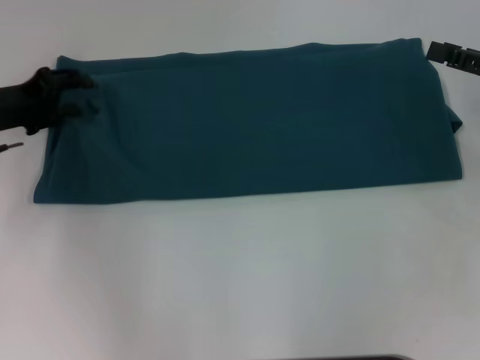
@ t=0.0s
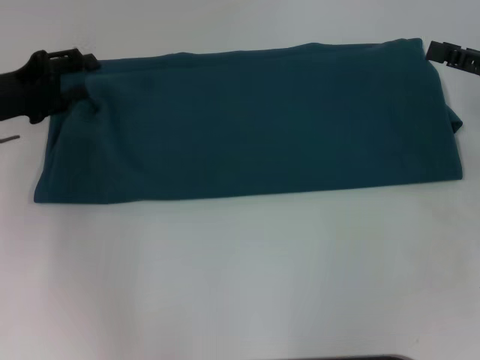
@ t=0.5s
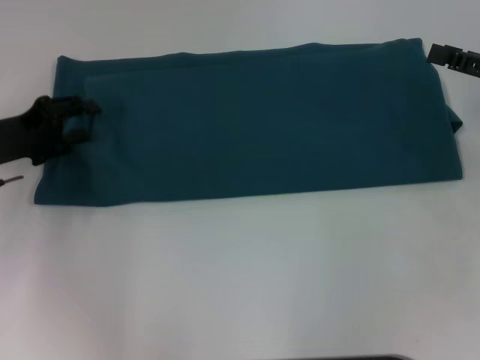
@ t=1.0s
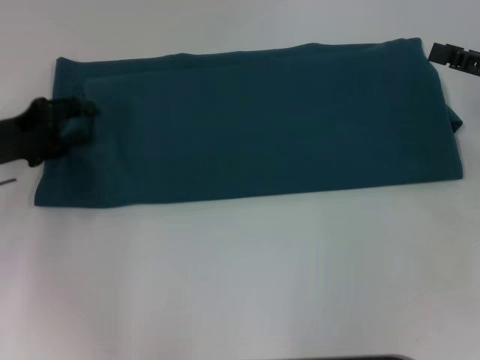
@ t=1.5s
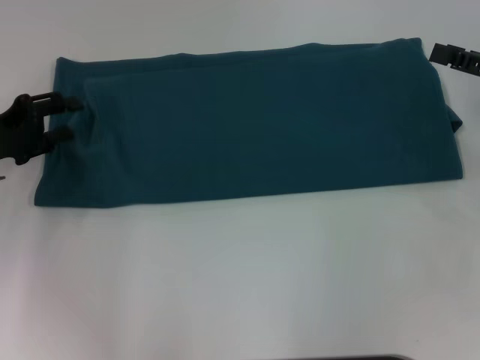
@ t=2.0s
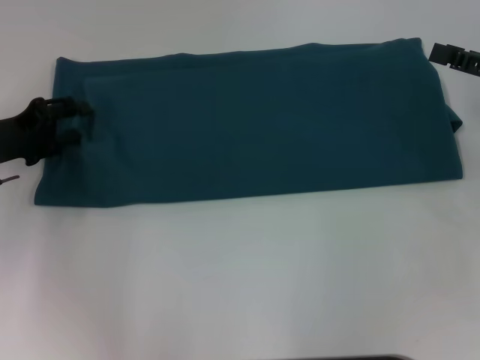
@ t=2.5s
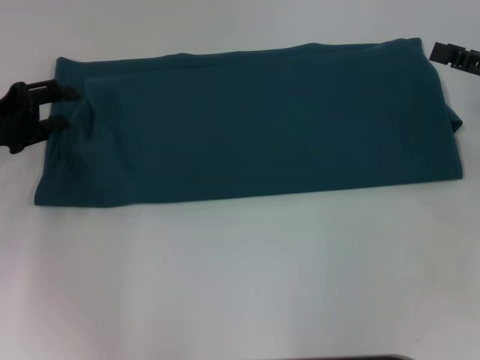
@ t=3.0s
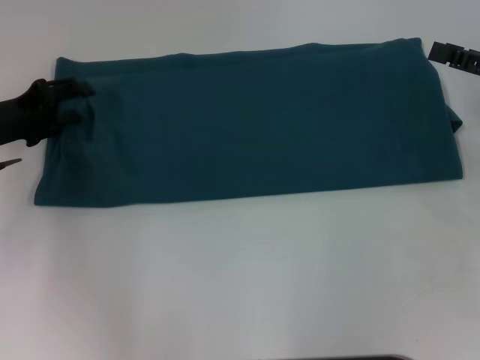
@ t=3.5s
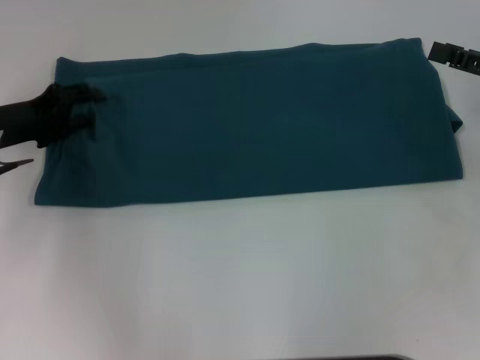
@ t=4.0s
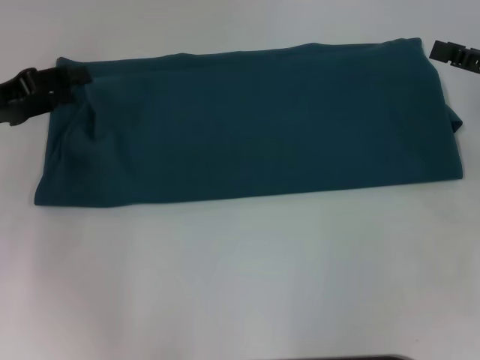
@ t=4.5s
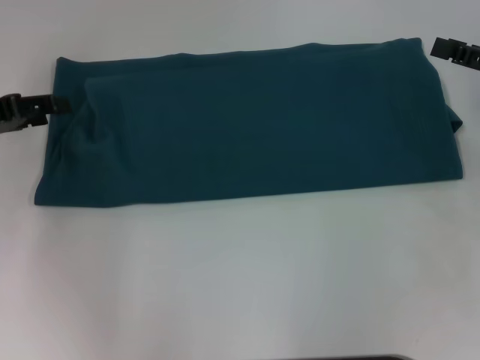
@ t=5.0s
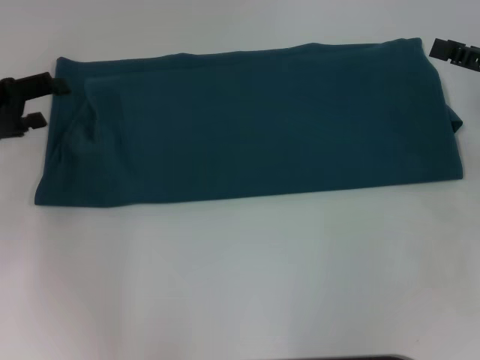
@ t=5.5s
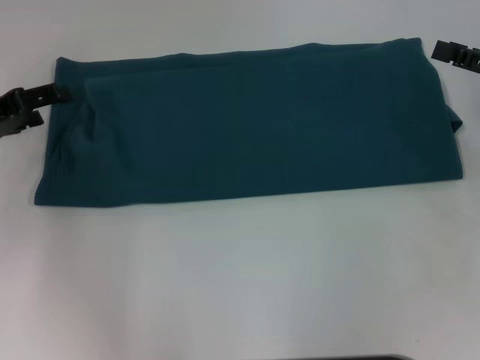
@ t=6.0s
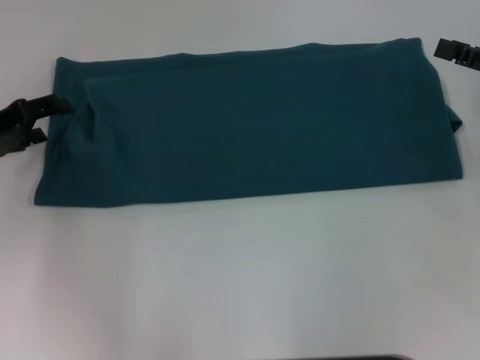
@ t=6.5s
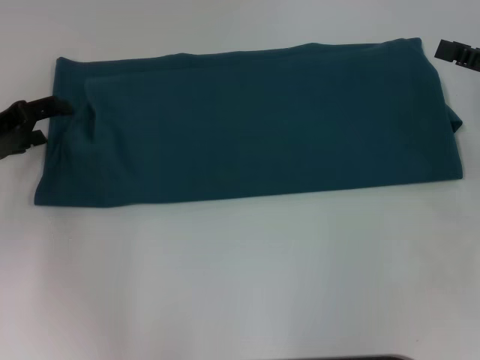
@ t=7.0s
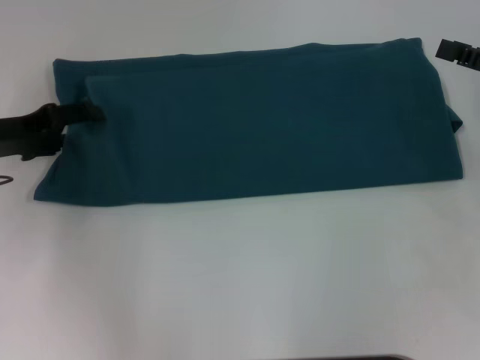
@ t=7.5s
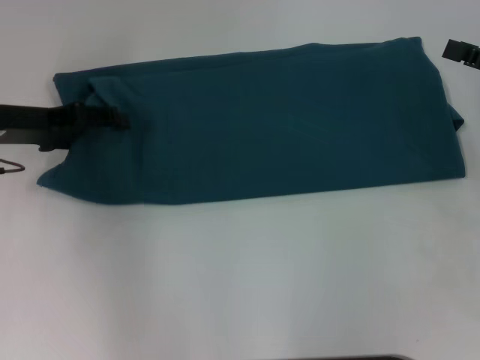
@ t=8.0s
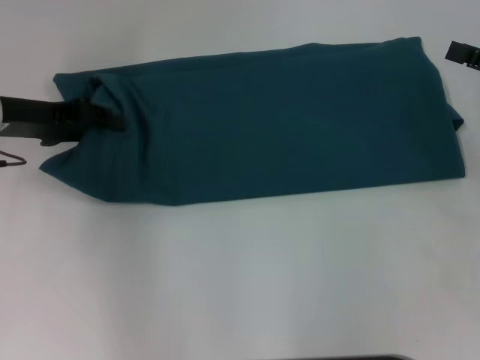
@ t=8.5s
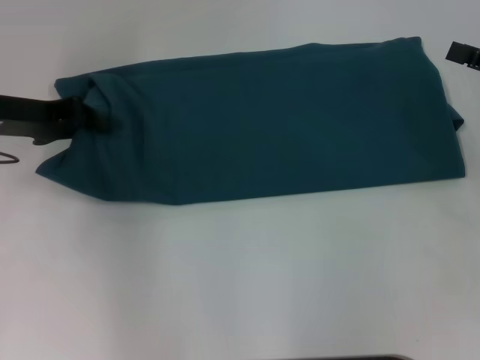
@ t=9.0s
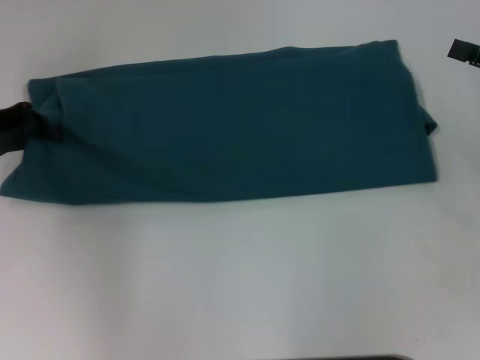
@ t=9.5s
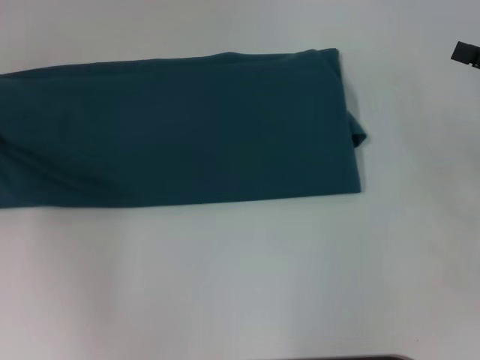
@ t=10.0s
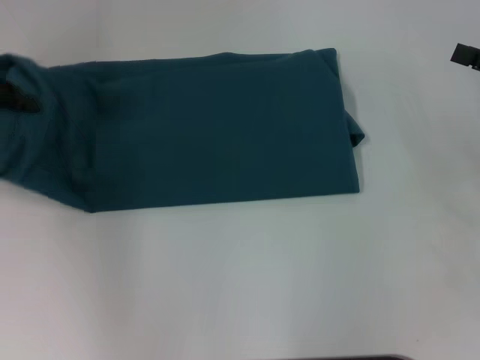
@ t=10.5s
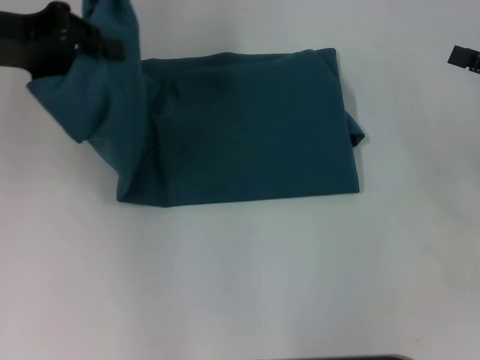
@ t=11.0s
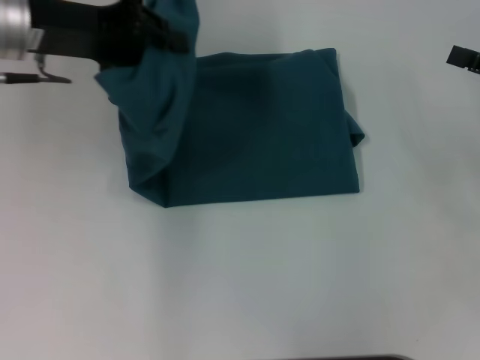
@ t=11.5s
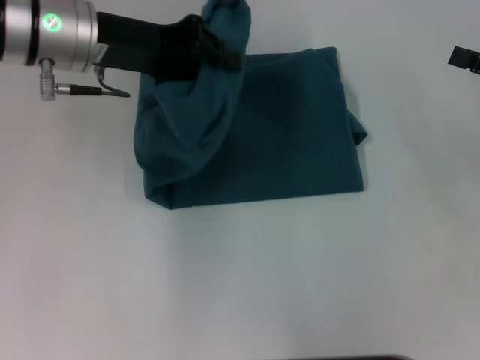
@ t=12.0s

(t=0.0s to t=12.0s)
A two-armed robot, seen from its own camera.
t=0.0s - t=4.0s: The grippers stay close to where they were, moving slightly.
t=6.0s - t=8.0s: The left gripper ends up some 5 cm from where it was.
t=8.0s - t=10.0s: The left gripper is displaced to the left by approximately 10 cm, and closes its fingers.
t=10.0s - t=12.0s: The left gripper moves to the right, some 20 cm.

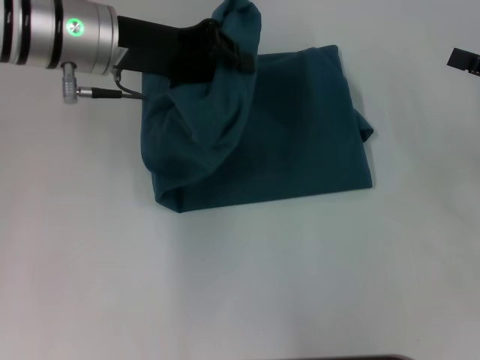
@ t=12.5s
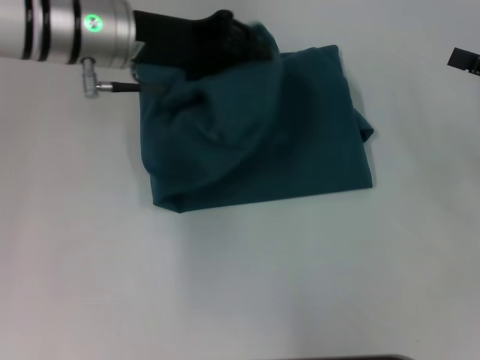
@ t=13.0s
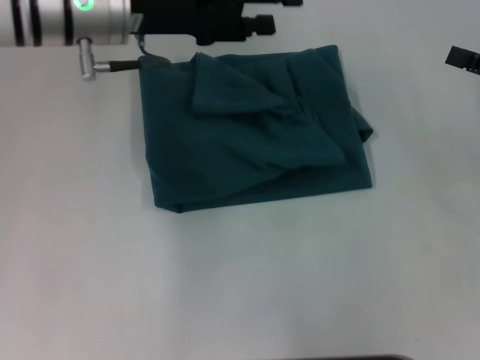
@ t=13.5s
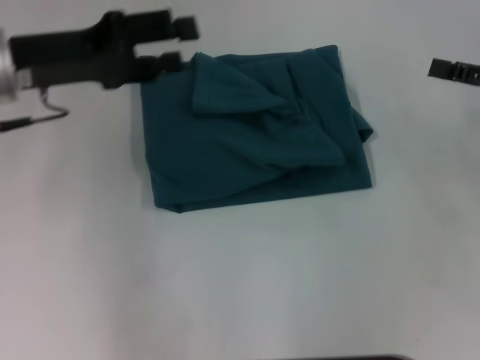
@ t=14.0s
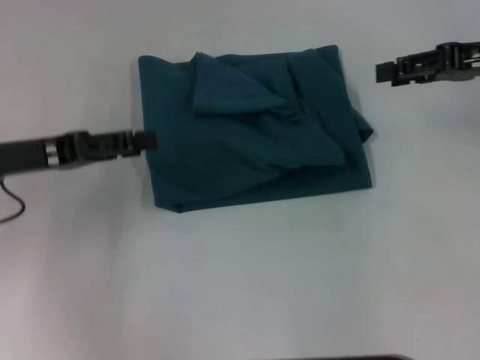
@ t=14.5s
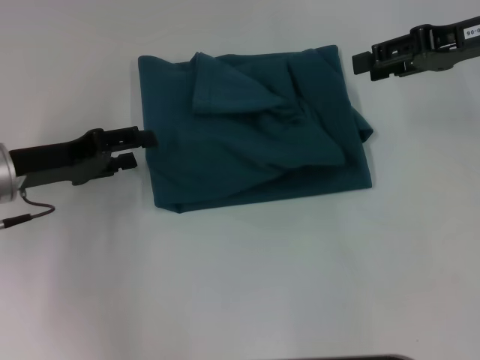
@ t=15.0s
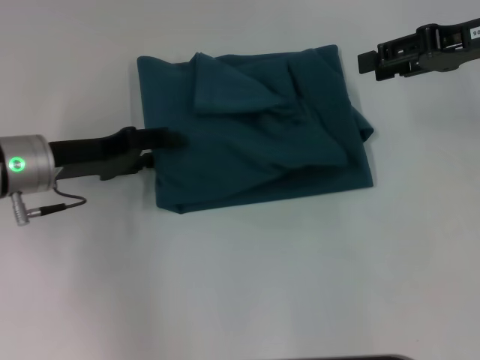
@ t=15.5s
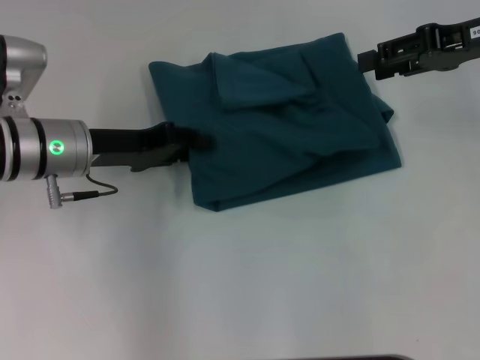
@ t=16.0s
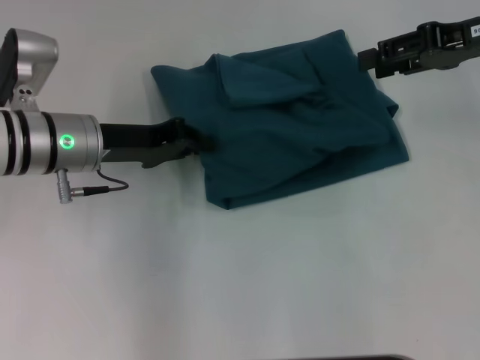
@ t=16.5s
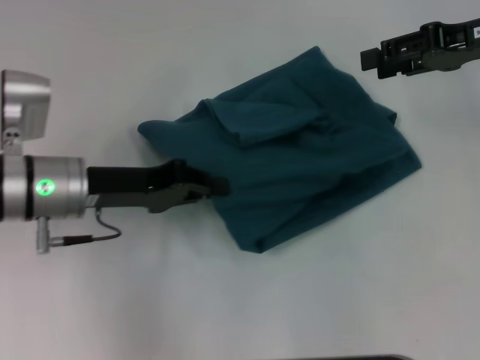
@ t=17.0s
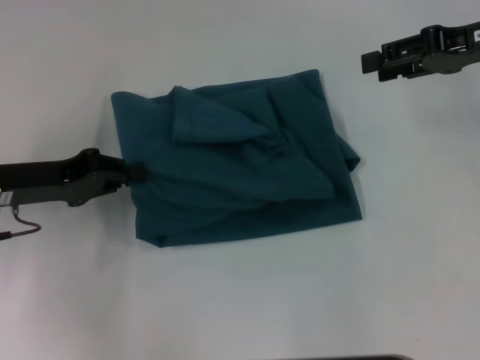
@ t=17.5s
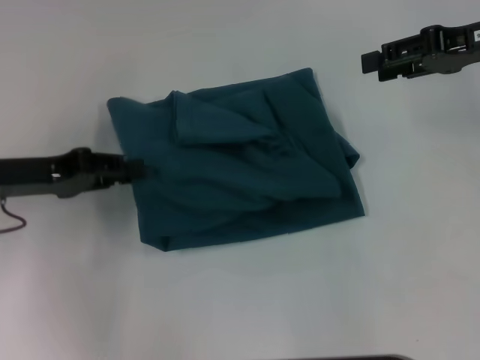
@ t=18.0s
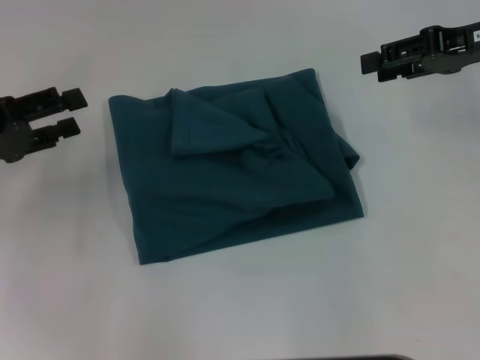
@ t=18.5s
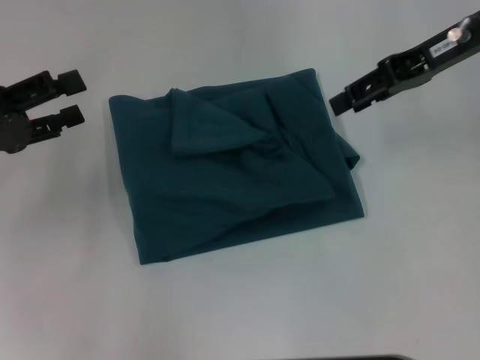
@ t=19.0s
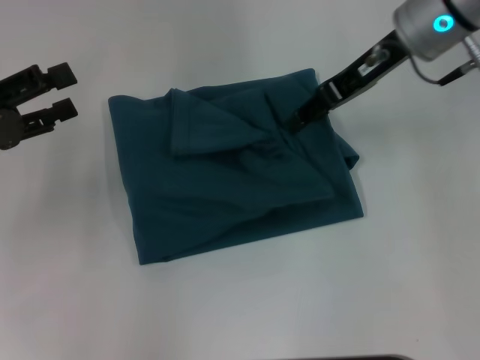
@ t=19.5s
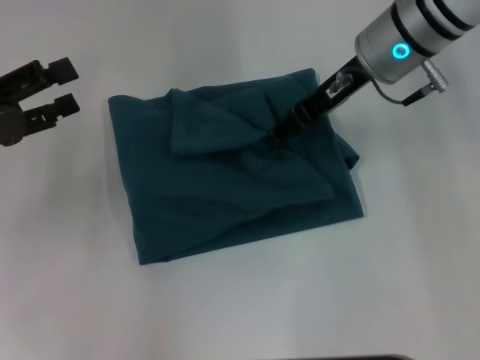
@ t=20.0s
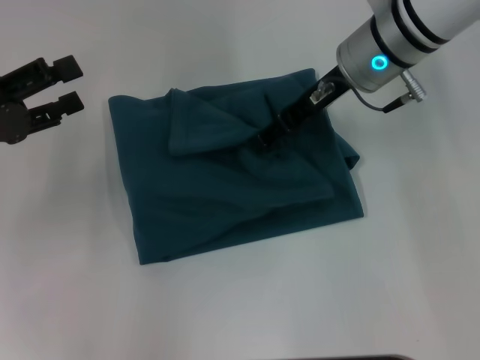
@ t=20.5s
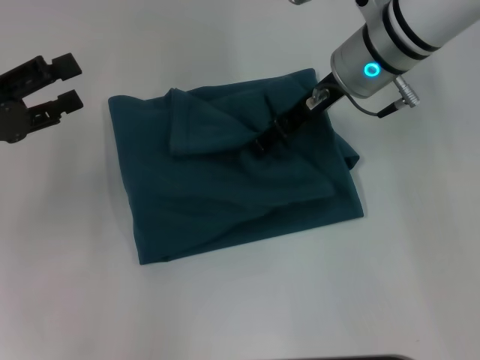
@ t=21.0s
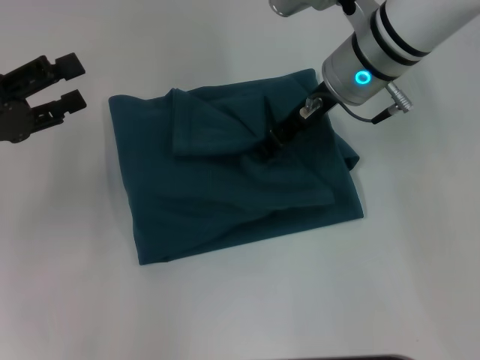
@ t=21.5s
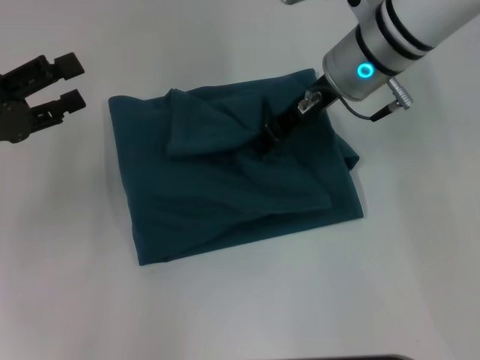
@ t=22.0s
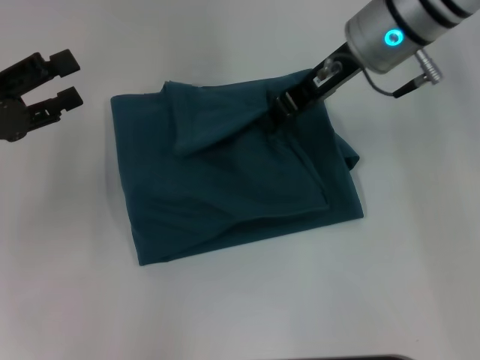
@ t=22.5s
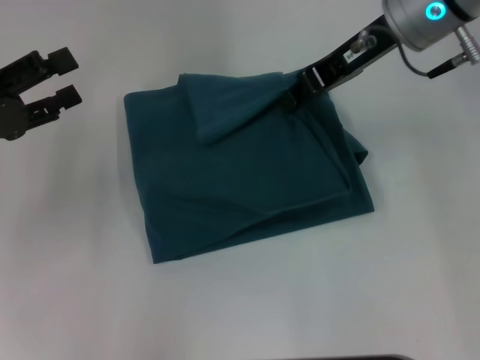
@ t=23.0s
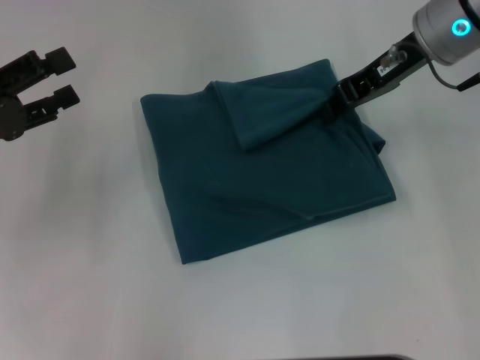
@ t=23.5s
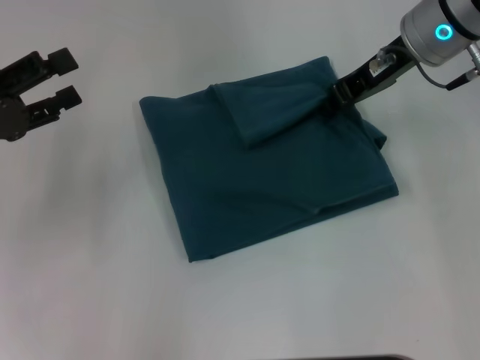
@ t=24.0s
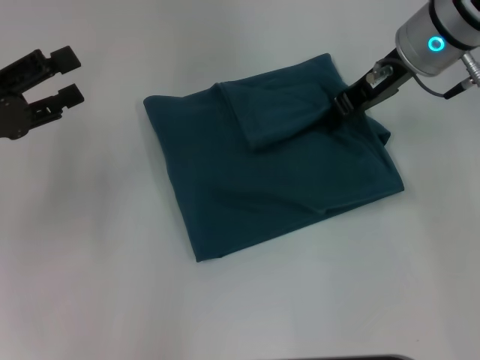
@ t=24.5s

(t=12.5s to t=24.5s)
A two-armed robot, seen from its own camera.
t=12.5s - t=14.5s: The right gripper goes roughly 10 cm forward, to the left and upward; the left gripper is displaced to the left, backward and downward by some 15 cm, and opens up.
t=14.5s - t=16.5s: The left gripper travels to the right and forward by about 10 cm, and closes its fingers.
t=16.5s - t=18.5s: The left gripper is displaced to the left and backward by some 15 cm.
t=18.5s - t=20.5s: The left gripper opens up. Meanwhile the right gripper is displaced to the left by some 15 cm.
t=20.5s - t=22.5s: The right gripper closes its fingers.
t=22.5s - t=24.5s: The grippers make only small movements.

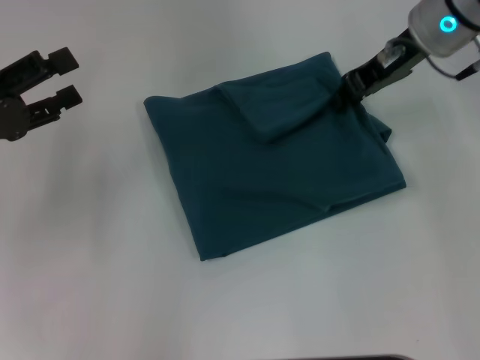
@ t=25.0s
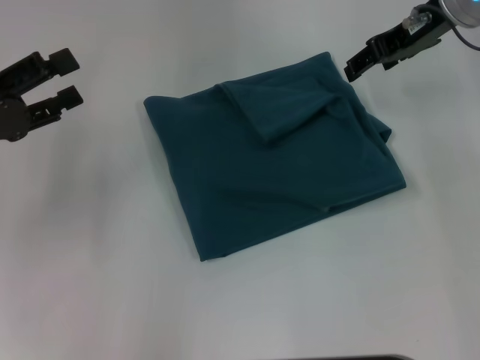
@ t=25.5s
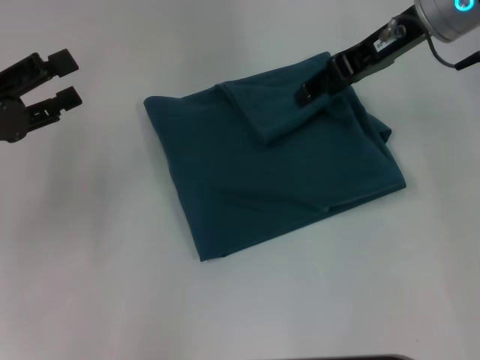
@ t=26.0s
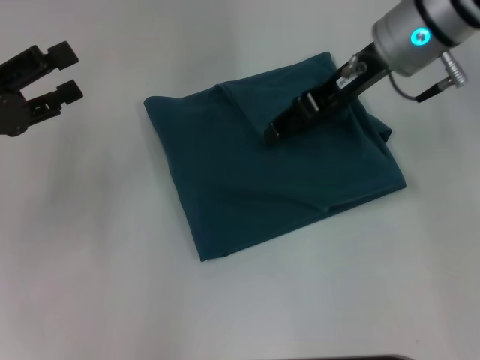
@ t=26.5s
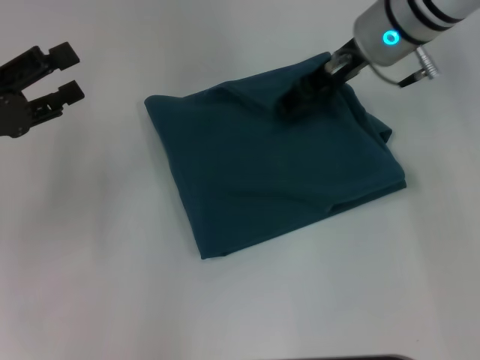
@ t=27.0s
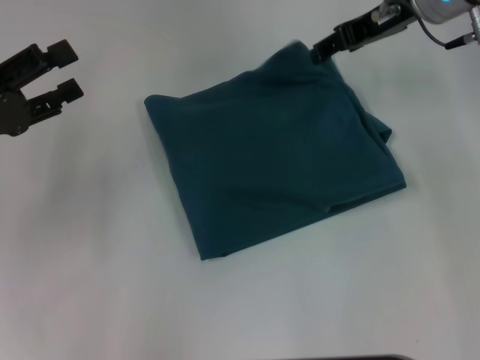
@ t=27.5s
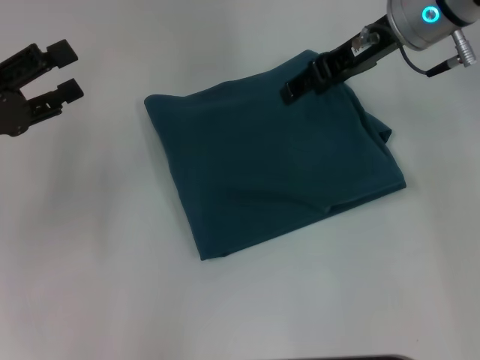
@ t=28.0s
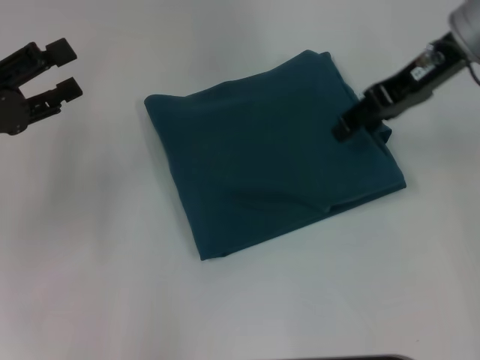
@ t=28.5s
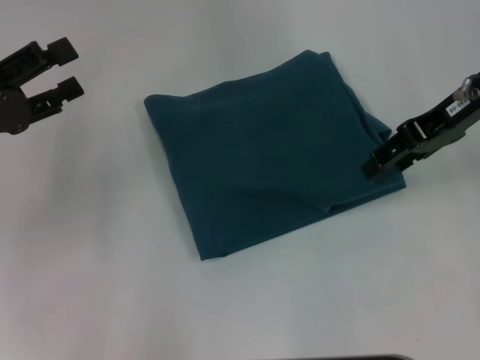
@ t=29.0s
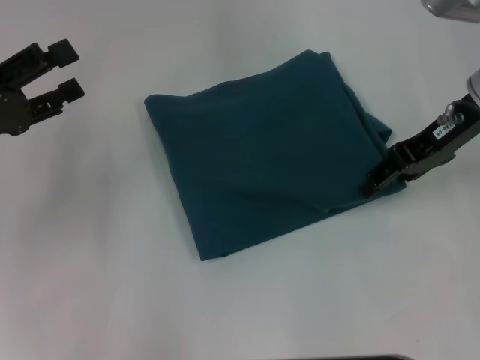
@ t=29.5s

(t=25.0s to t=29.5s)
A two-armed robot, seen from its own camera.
t=25.0s - t=27.0s: The right gripper opens.
t=27.0s - t=29.5s: The right gripper moves to the right and backward, some 10 cm.
